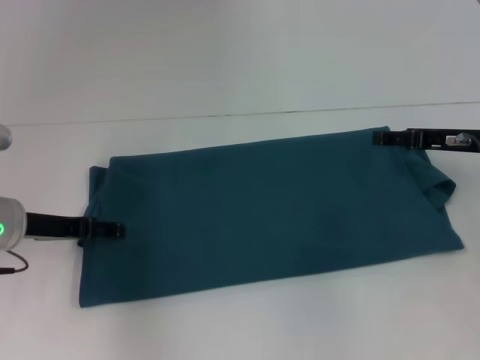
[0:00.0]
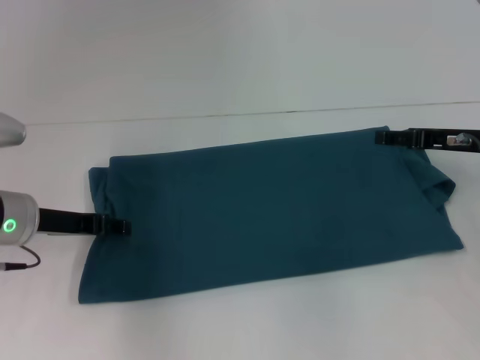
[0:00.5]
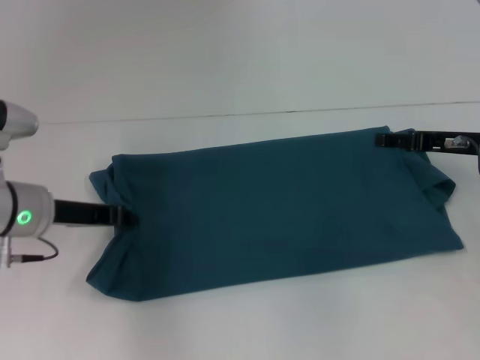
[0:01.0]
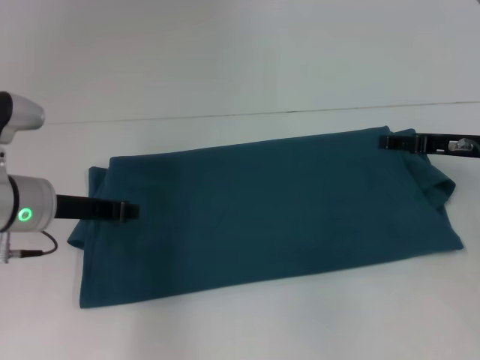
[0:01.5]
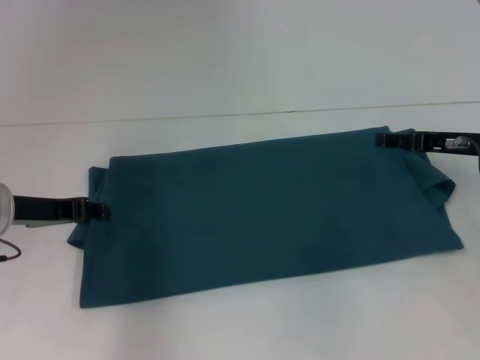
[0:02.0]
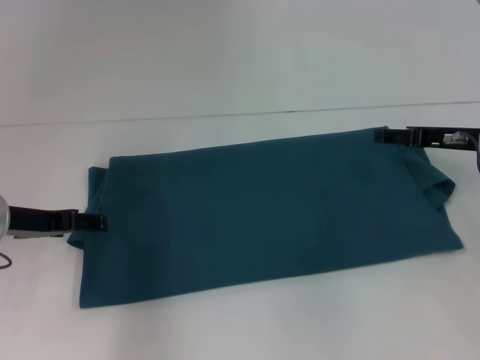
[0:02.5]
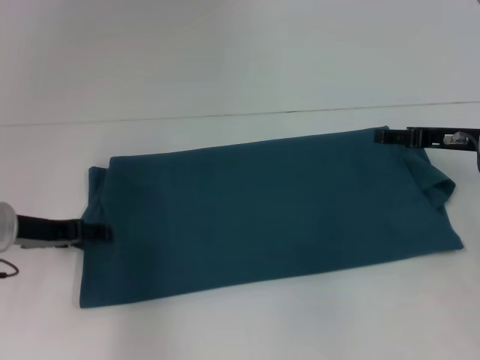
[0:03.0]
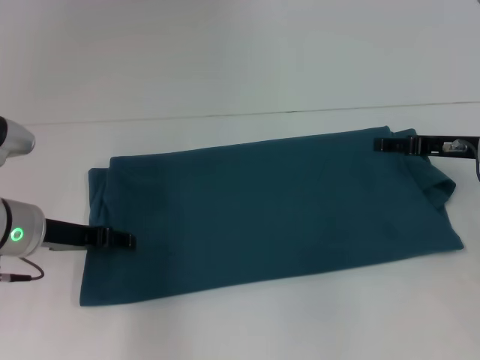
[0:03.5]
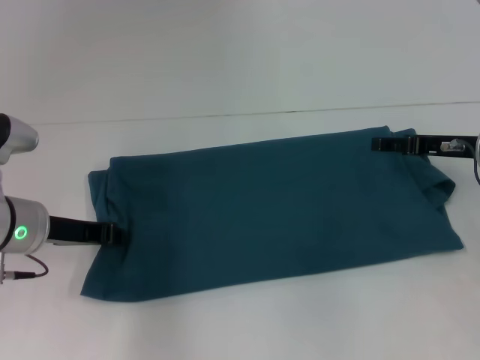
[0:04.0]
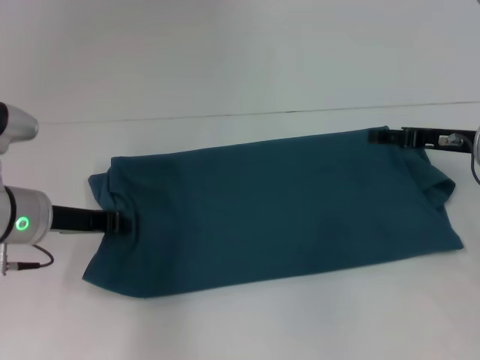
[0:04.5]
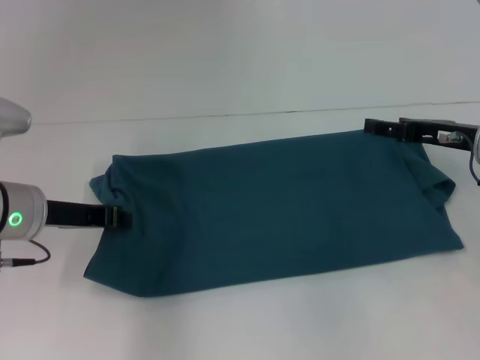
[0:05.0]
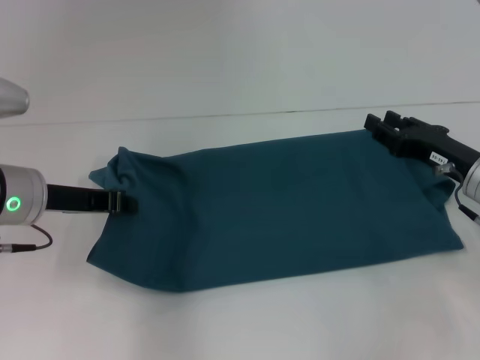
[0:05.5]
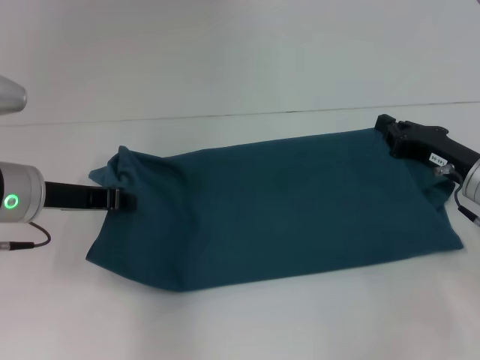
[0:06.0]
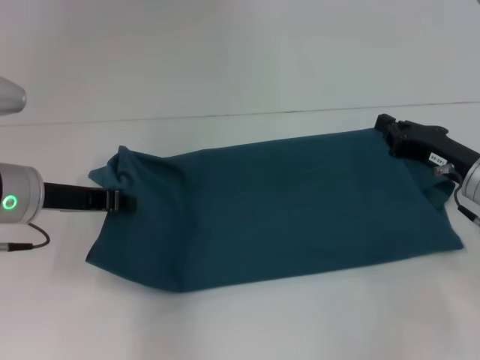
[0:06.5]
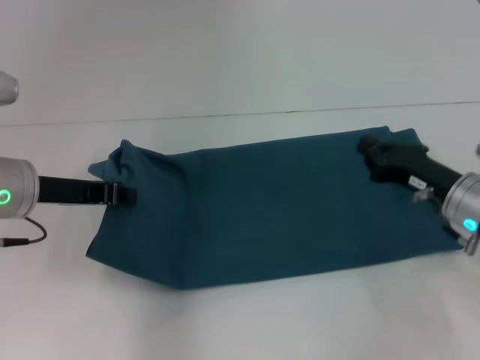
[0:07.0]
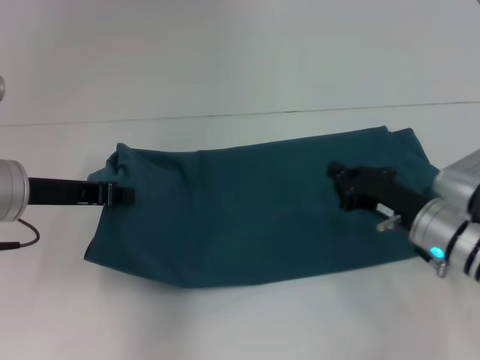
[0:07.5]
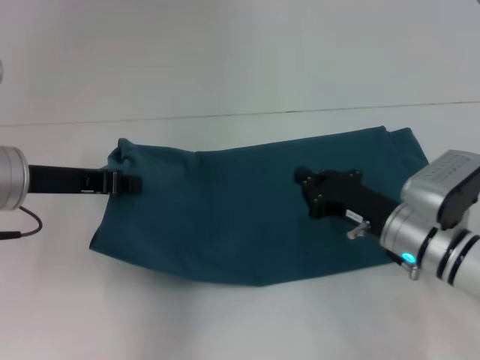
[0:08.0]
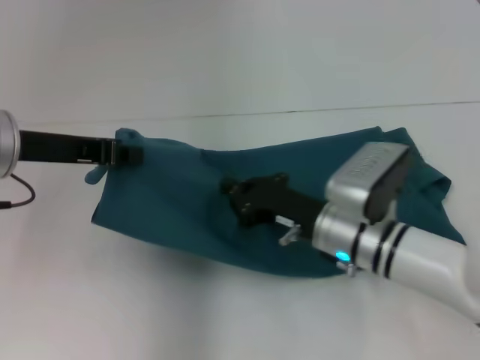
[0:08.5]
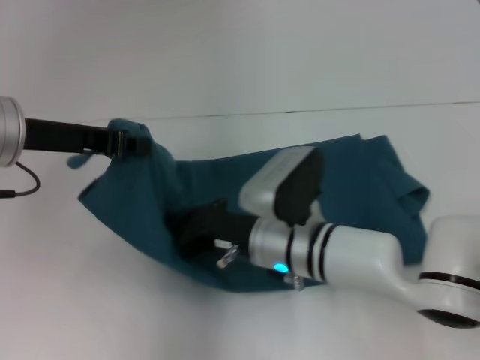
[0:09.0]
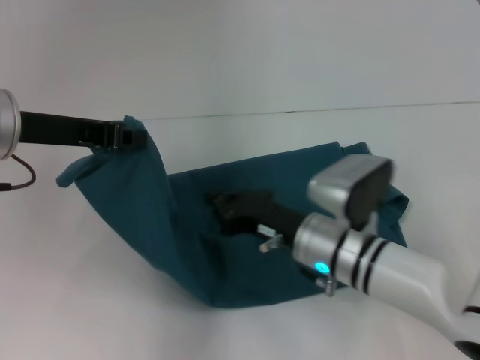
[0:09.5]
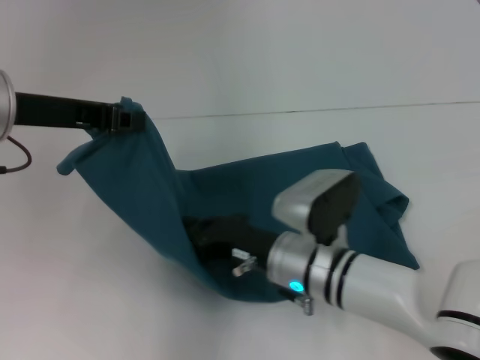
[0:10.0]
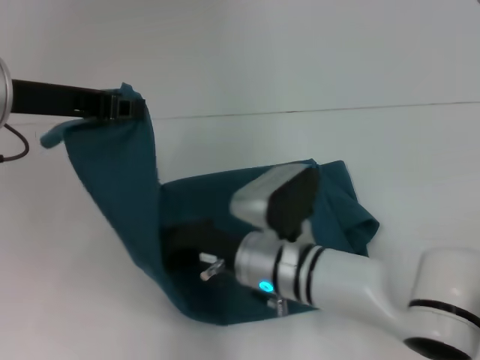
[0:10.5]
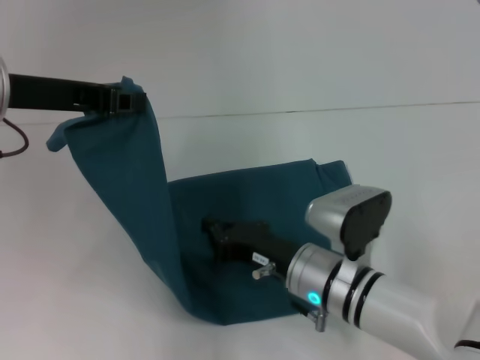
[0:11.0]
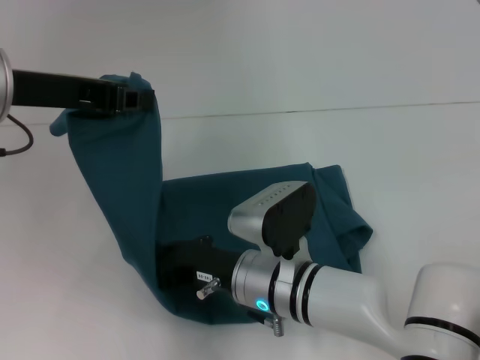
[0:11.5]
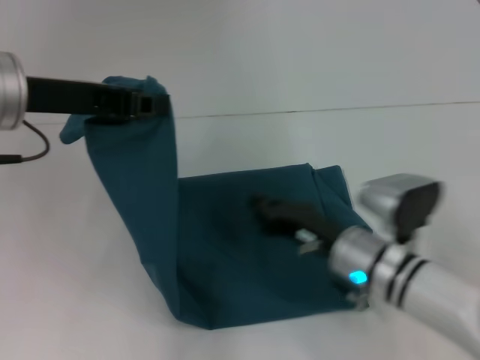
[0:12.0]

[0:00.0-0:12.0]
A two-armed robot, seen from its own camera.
Step, 0:00.0 to 0:09.5: Press the middle of the clothes with your right hand.
0:00.0 to 0:02.0: The left gripper closes.
0:02.0 to 0:04.0: The left gripper opens and closes again.
0:04.0 to 0:06.0: The left gripper closes; the right gripper changes place by roughly 5 cm, and closes up.
0:06.0 to 0:08.0: The right gripper moves to the left, approximately 10 cm.
0:08.0 to 0:10.0: The right gripper shifts roughly 10 cm to the left, while the left gripper is displaced upward by about 5 cm.
0:10.0 to 0:12.0: The right gripper moves left and right over approximately 10 cm, changing direction 3 times.

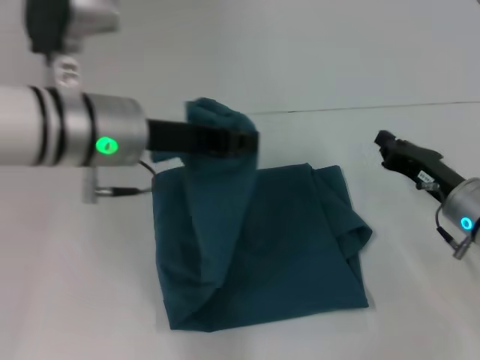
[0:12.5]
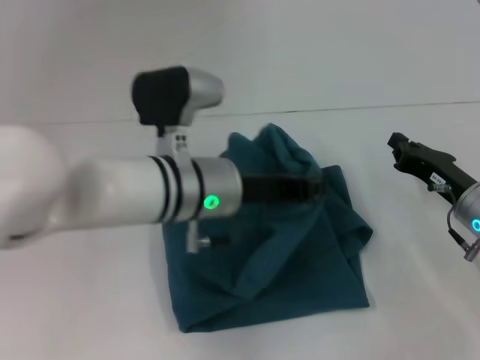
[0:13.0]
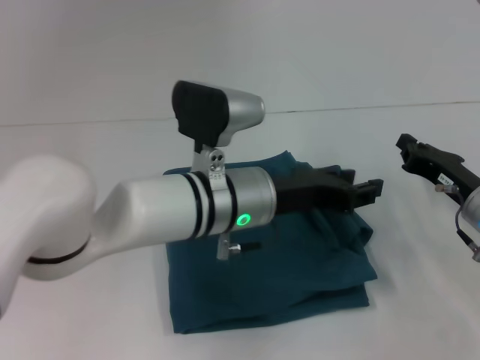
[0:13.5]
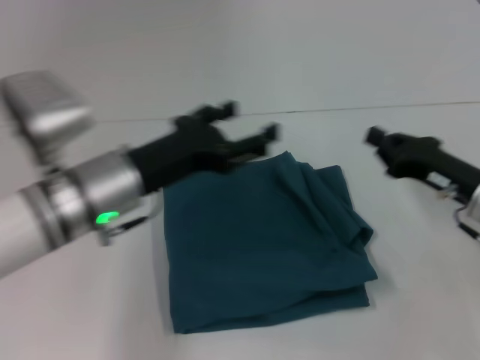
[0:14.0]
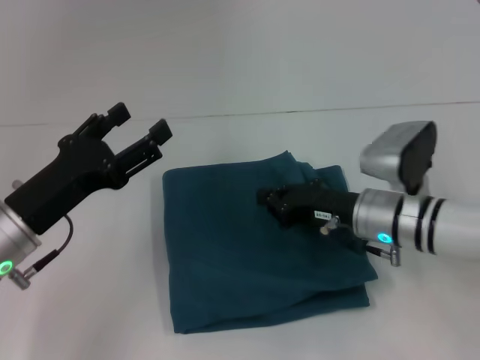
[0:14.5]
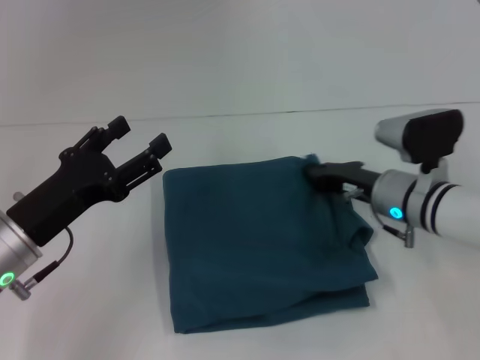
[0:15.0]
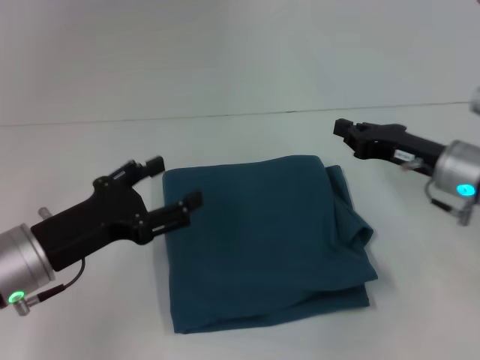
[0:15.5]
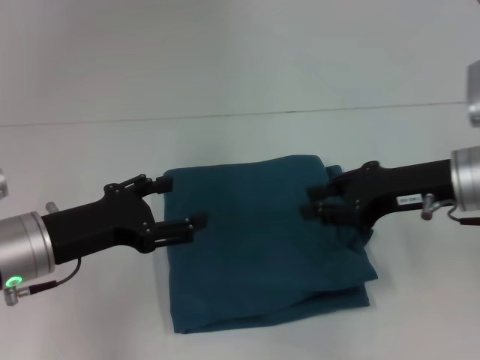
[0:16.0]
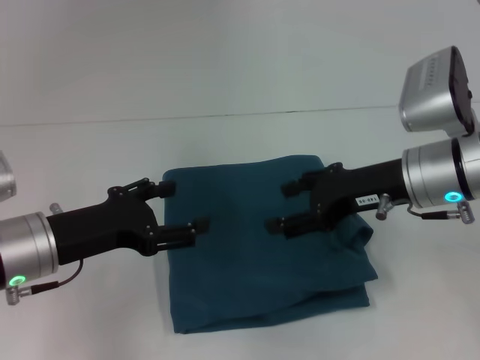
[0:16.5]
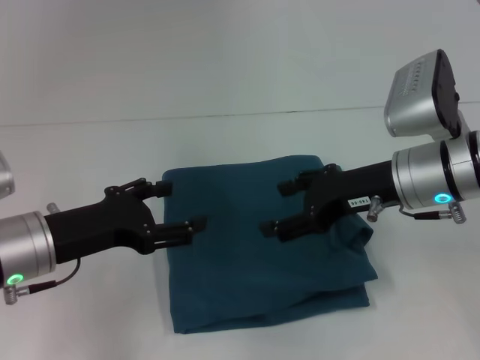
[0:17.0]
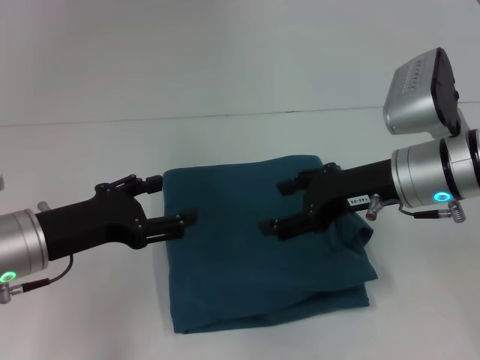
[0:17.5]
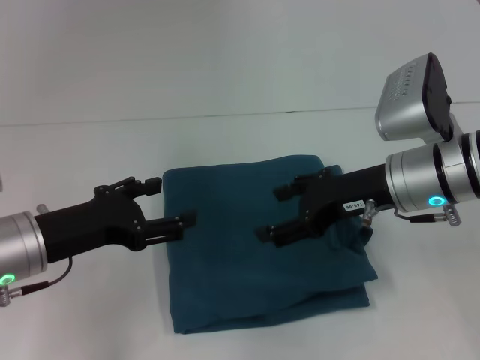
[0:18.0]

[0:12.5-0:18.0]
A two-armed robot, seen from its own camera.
0:12.5 to 0:14.5: The left gripper moves downward, to the left and backward, some 15 cm, and opens its fingers; the right gripper shifts some 10 cm to the left.
0:14.5 to 0:16.0: The right gripper travels upward and to the right by about 10 cm.
0:16.0 to 0:18.0: The right gripper moves to the left, approximately 5 cm, and opens up.

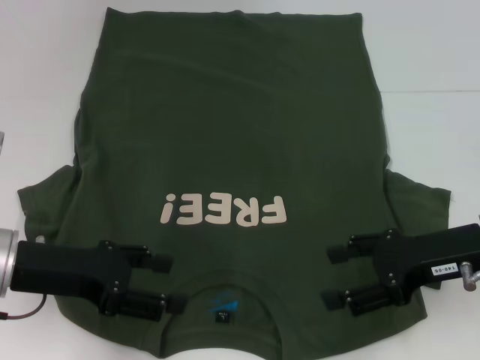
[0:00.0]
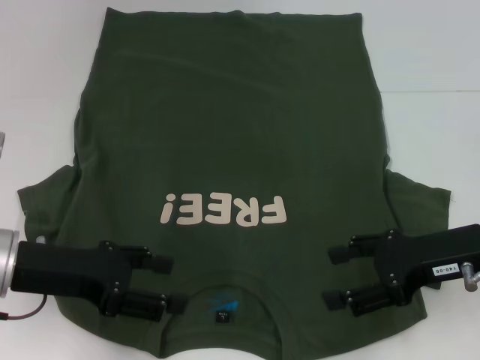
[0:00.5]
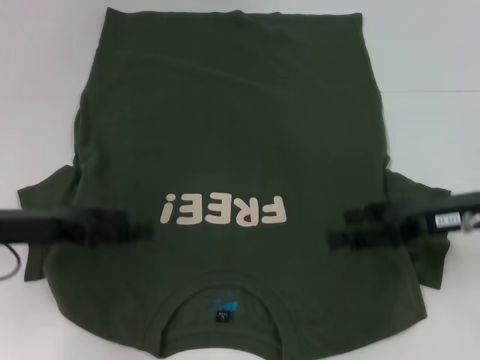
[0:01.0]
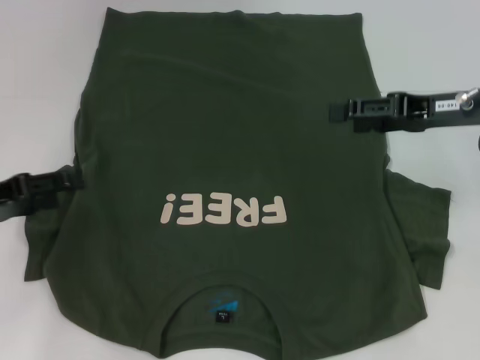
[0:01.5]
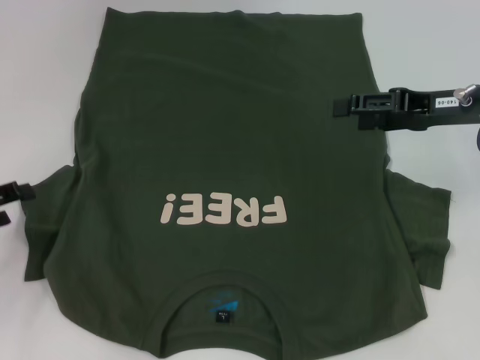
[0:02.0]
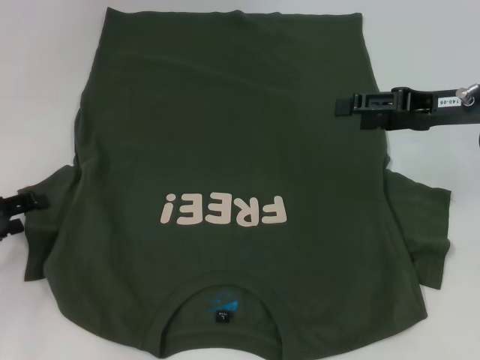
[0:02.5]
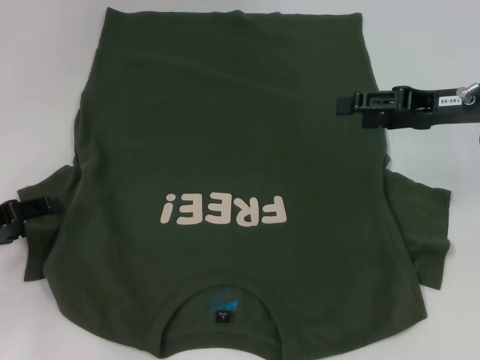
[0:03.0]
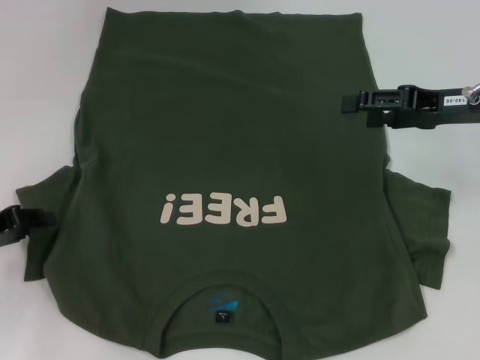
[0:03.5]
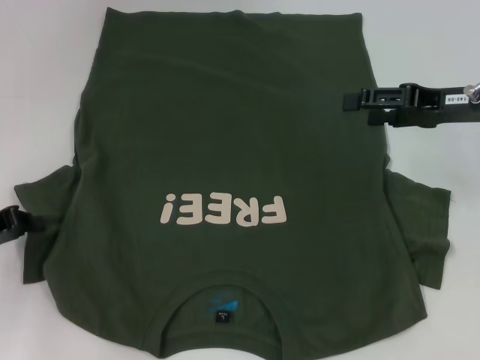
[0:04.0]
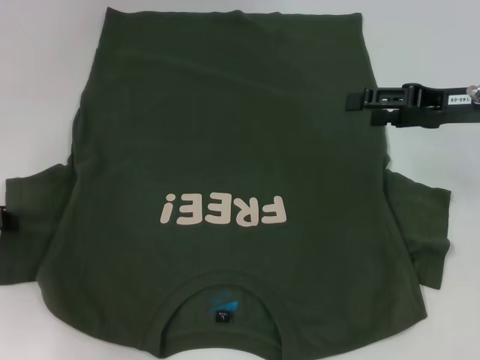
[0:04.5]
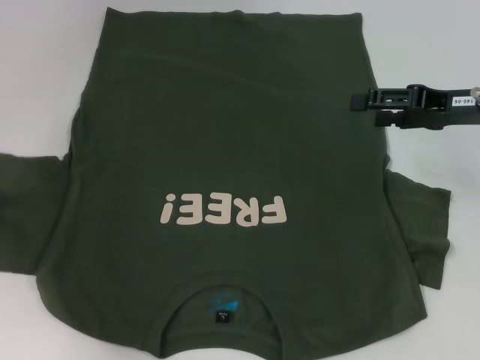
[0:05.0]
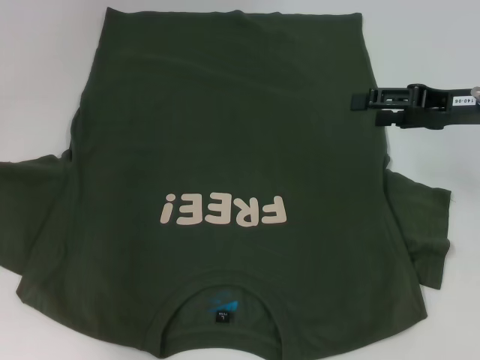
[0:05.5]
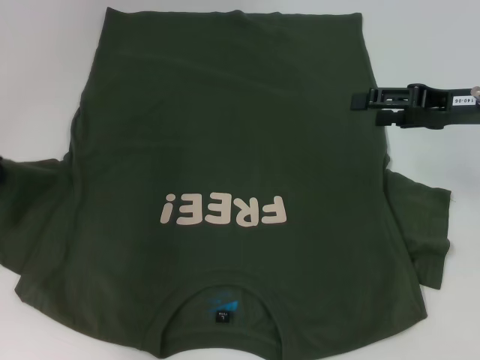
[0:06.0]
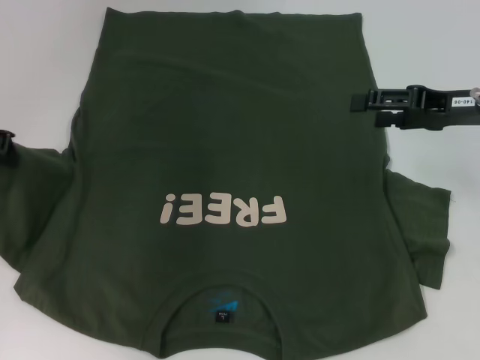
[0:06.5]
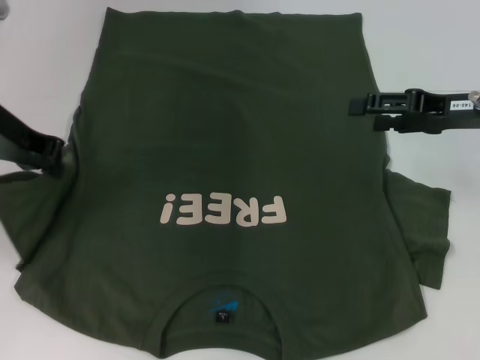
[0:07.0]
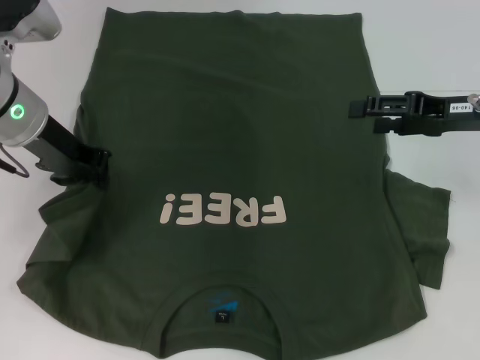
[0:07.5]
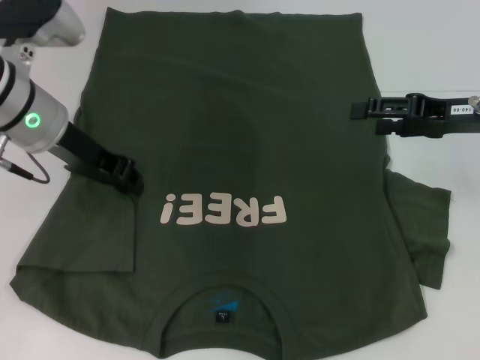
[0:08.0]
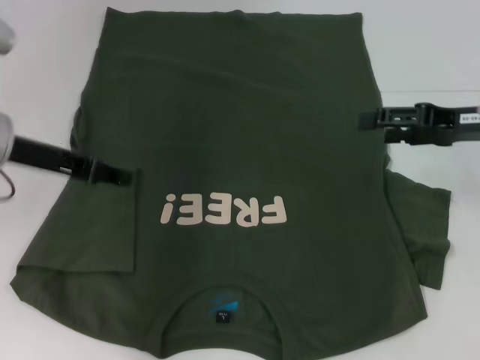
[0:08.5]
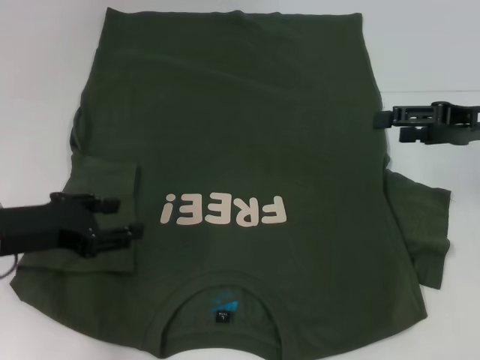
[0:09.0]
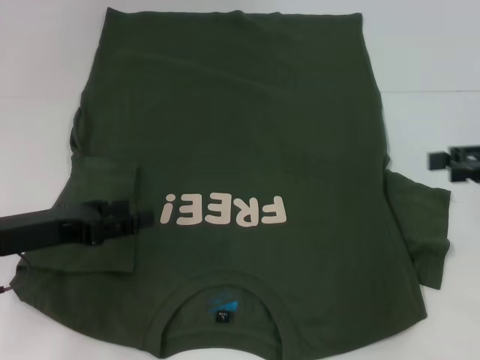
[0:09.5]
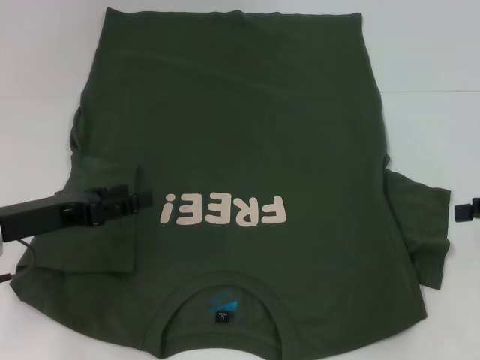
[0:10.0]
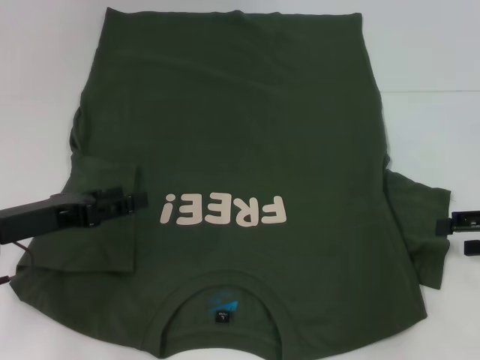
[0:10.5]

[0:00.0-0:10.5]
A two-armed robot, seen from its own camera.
Step, 0:00.0 to 0:08.0: Fold the bottom left sleeve with your left hand.
0:00.0 to 0:02.0: The right gripper is displaced forward and upward by roughly 10 cm. The left gripper moves to the left, some 10 cm.
0:02.0 to 0:04.0: The left gripper closes.
0:04.0 to 0:06.5: The left gripper moves upward and forward, about 15 cm.
0:06.5 to 0:08.5: The left gripper goes about 5 cm to the right, and opens its fingers.
0:08.5 to 0:10.5: The left gripper moves downward and backward, about 10 cm. The right gripper shifts approximately 10 cm to the right and backward.
